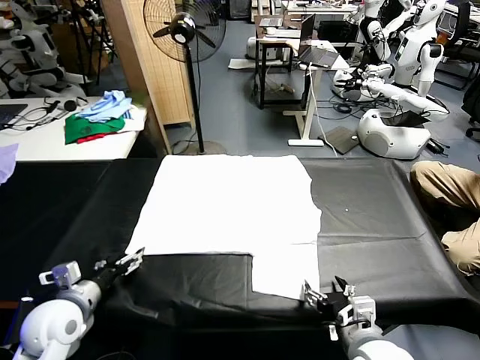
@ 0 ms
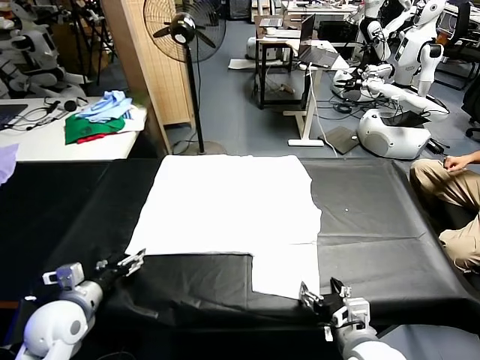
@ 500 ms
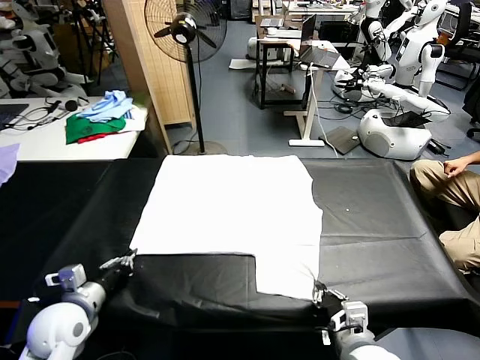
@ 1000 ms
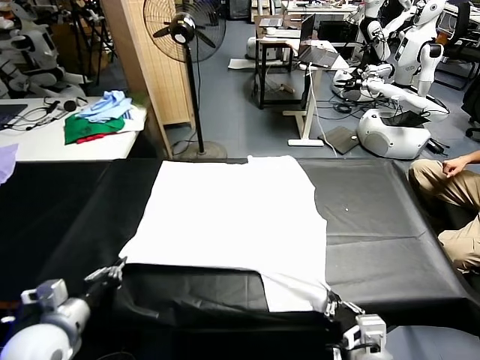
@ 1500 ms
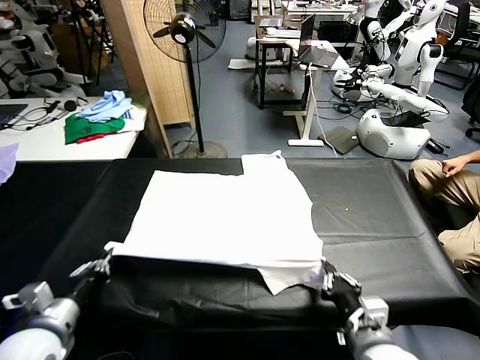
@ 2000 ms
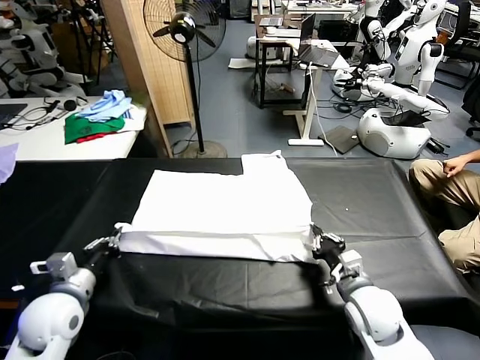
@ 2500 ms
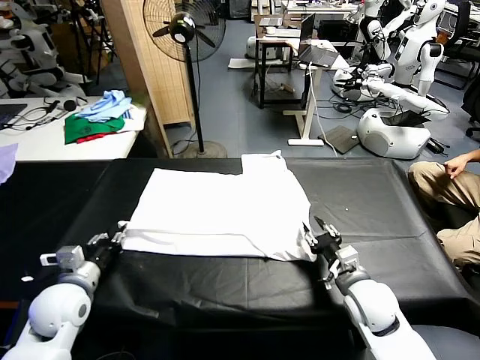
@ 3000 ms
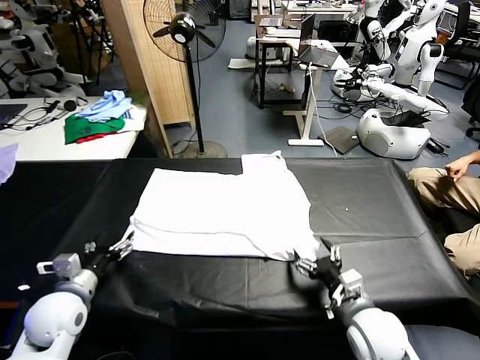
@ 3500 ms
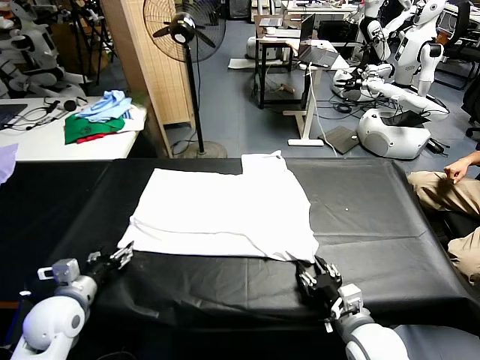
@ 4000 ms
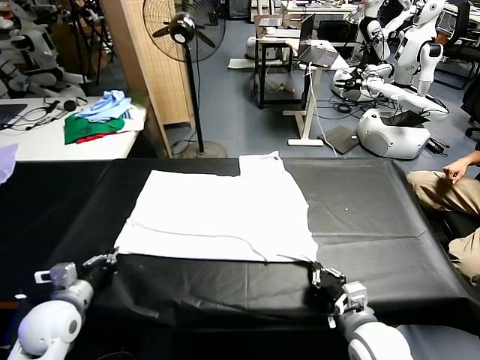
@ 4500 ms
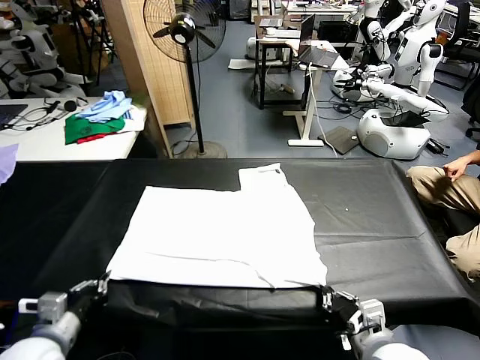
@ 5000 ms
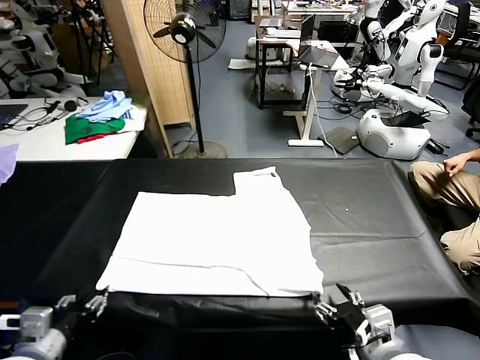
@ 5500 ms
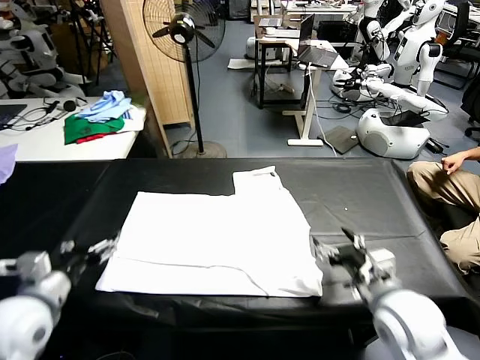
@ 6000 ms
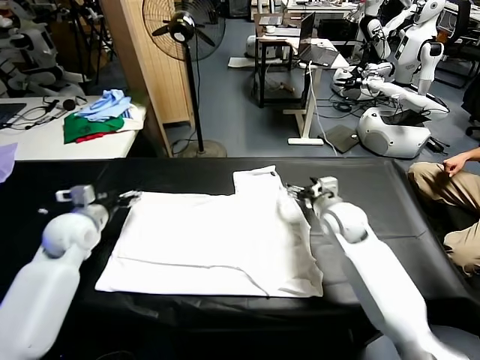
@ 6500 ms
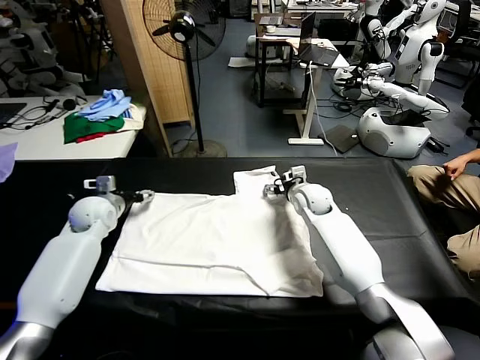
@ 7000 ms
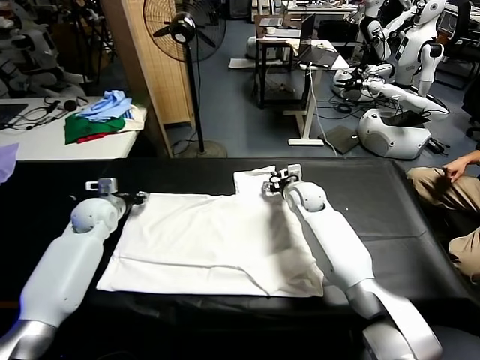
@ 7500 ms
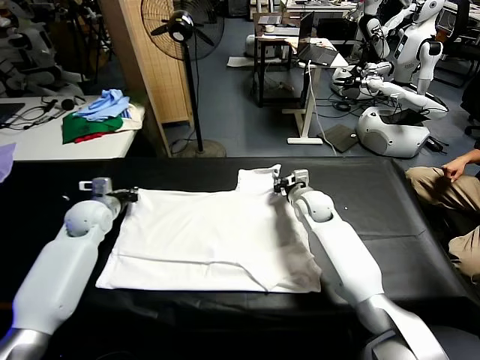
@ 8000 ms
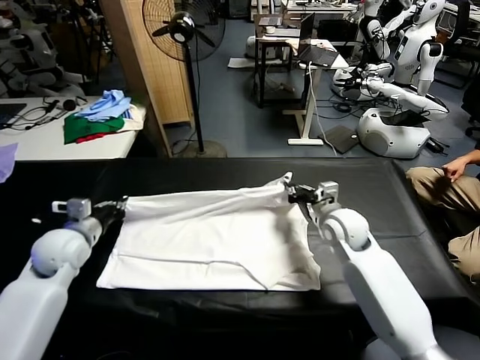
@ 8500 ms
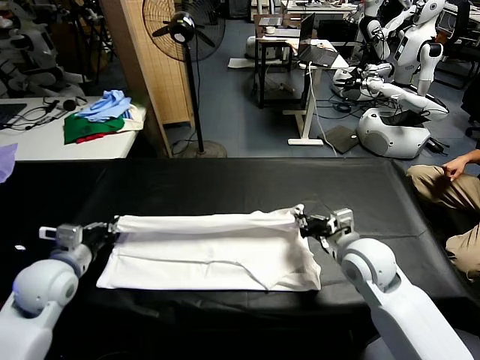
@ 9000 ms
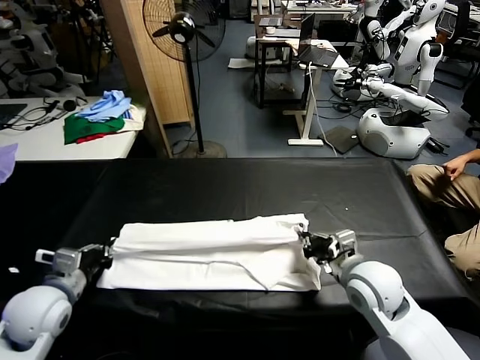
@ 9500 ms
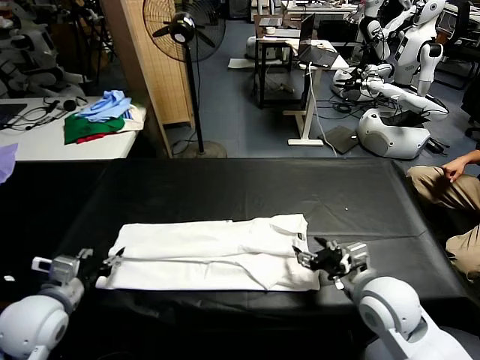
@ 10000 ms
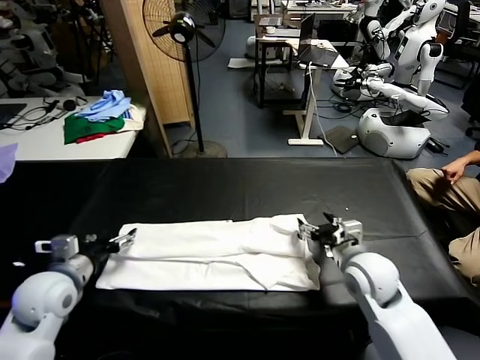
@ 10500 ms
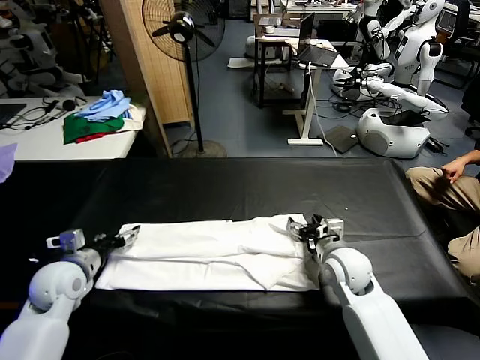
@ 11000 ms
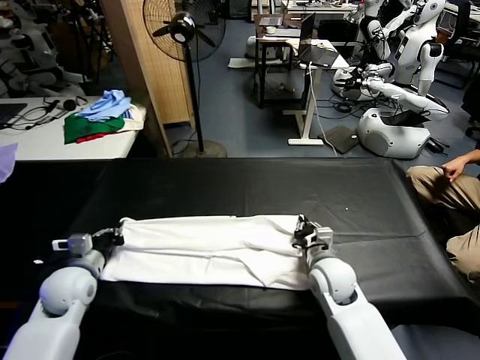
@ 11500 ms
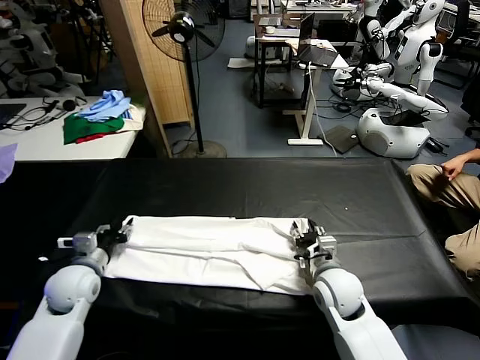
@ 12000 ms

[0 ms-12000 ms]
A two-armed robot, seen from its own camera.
Task of the whole recording: fold and organize the clothes.
Step, 0 ms to 1000 ms: use both grippers simultaneously to clamp the lower edge of the clothing fabric.
Step, 1500 ms to 3000 ms: use both grippers to drag the lower edge of the fabric forward and fold it over the upper edge.
Step, 3500 ms to 5500 ms: Drag the clothes downward with both gripper.
Step, 6000 ms to 7500 ms: use both grippers simultaneously to clamp the upper edge of the clothing fabric.
Step, 8000 ms to 10000 ms: use both grippers to drag the upper edge of the fabric backward and fold it over the lower edge.
2000 ms to 4000 ms: The left gripper shifts some 10 cm forward and downward, and opens up. The right gripper moves about 5 cm forward and comes back, and opens.
4000 ms to 6000 ms: The left gripper moves upward, approximately 10 cm, goes backward and returns, approximately 10 cm each way, and closes, then opens again, while the right gripper heads forward and upward, covering about 15 cm, and opens up.
6000 ms to 8000 ms: The two grippers go some 20 cm forward. The left gripper closes up. Meanwhile the right gripper closes its fingers.
8000 ms to 10000 ms: The two grippers go about 25 cm backward. The right gripper opens its fingers. Meanwhile the left gripper opens up.
10000 ms to 12000 ms: The left gripper goes some 10 cm forward and downward, and closes, then reopens. The right gripper goes approximately 10 cm downward and to the left, and closes, then reopens.

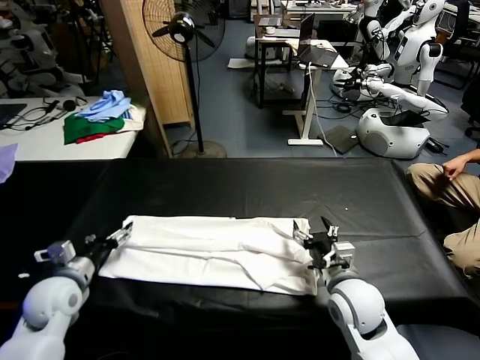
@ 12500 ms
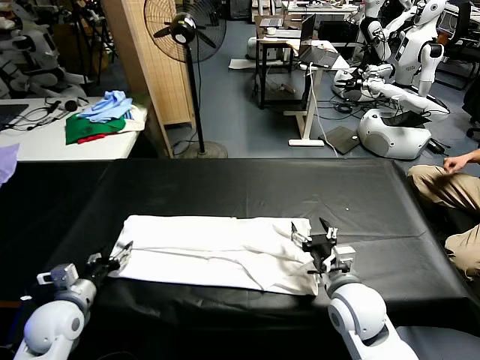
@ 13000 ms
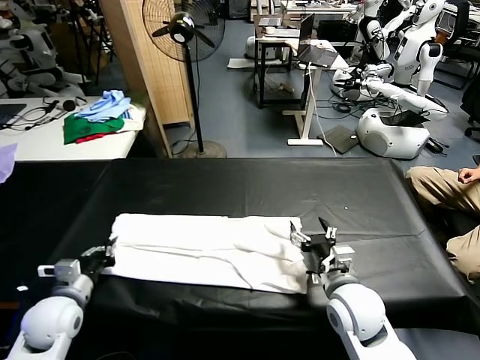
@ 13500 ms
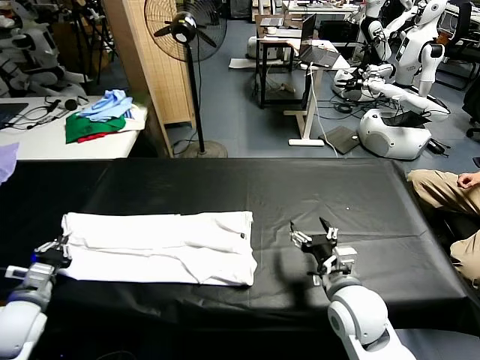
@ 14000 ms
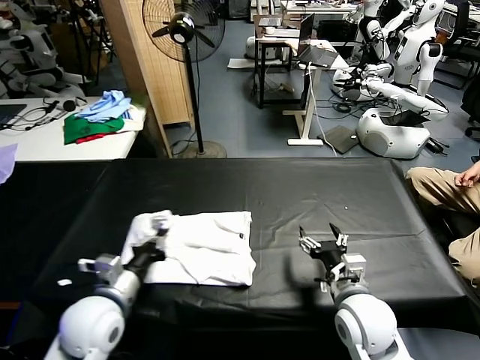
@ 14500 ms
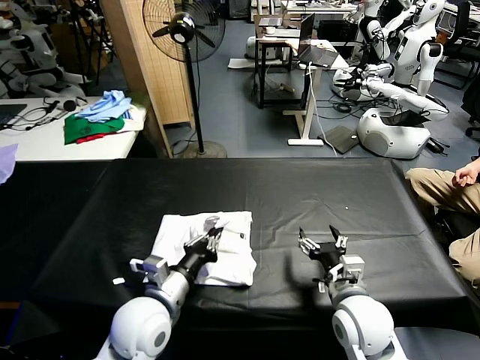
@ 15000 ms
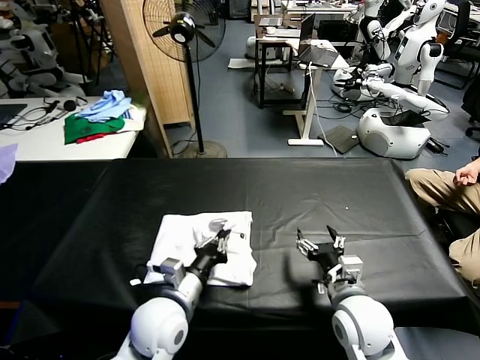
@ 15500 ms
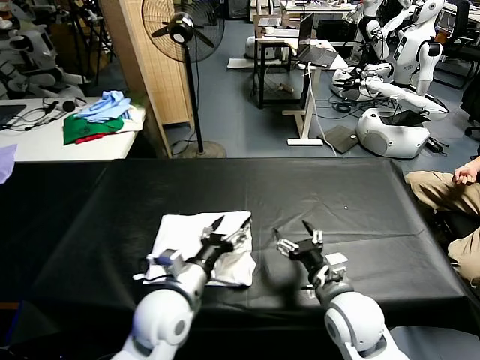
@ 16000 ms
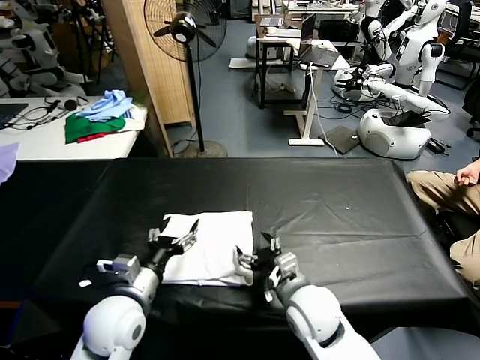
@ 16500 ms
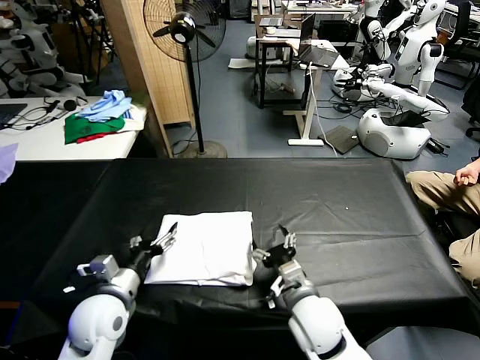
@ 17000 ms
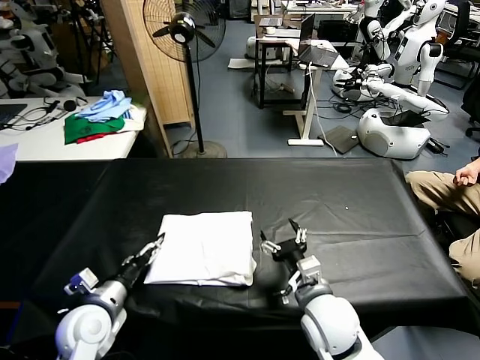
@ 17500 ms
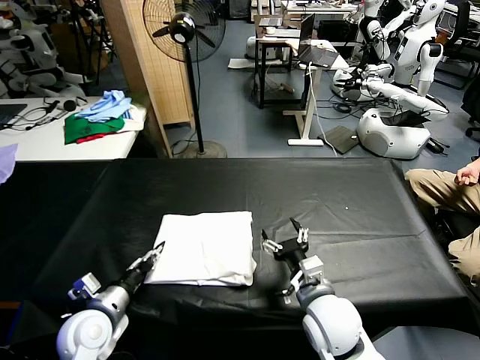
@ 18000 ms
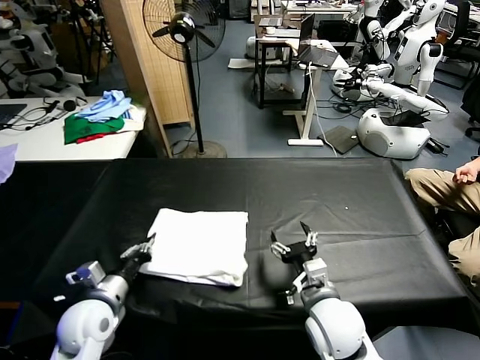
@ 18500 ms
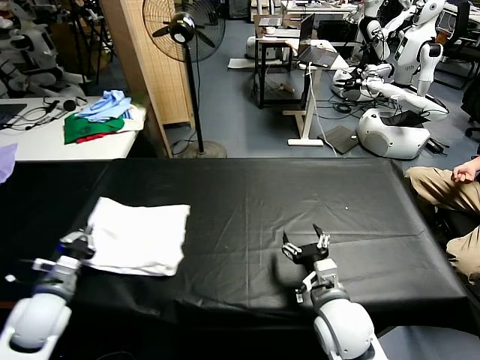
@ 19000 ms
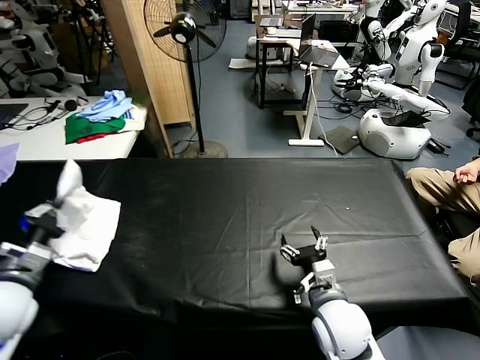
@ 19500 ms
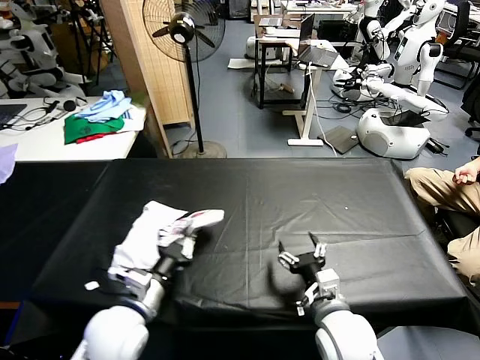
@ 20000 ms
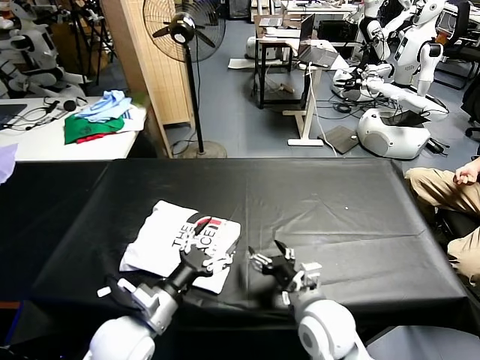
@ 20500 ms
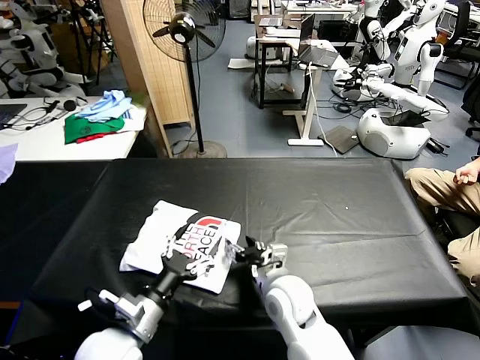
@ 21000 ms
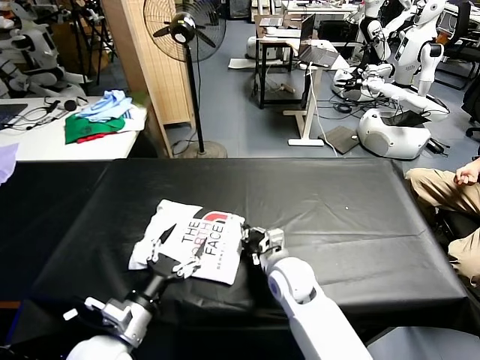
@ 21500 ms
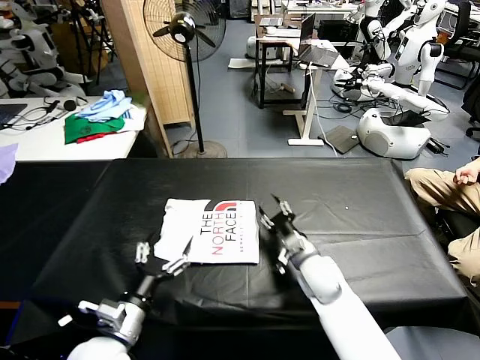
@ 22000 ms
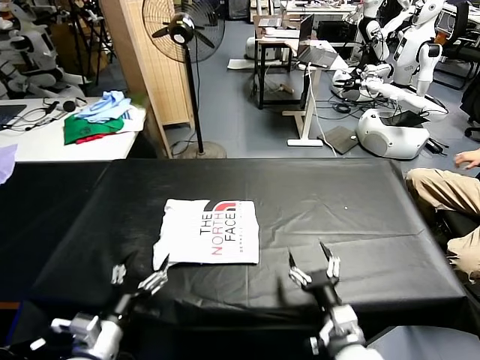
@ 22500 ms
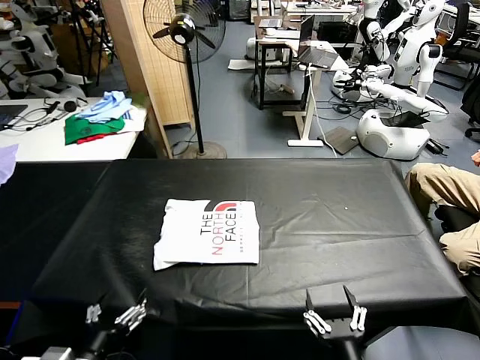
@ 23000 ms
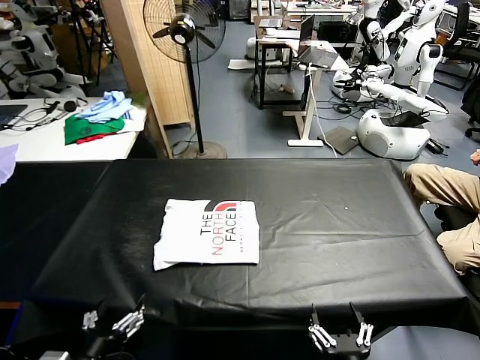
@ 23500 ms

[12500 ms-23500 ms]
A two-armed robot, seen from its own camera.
Task of the whole recording: fold and organize the clothes.
Step, 14000 ms to 16000 ms: use the left gripper to drag the left edge of the fabric to the left and folds it over the right edge.
Step, 16500 ms to 20000 ms: Flip the folded clothes over with left gripper.
Step, 20500 ms to 22000 ms: Drag the clothes to the center of the table.
12500 ms to 14500 ms: The left gripper travels to the right by roughly 10 cm, and closes up.
14500 ms to 16000 ms: The left gripper travels to the right by approximately 10 cm, and opens up.
16000 ms to 18000 ms: The left gripper shifts approximately 15 cm to the left, and closes up.
18000 ms to 20000 ms: The left gripper goes approximately 10 cm to the right and upward, and closes.
20000 ms to 21500 ms: The right gripper travels forward and to the left by approximately 15 cm, and closes, while the left gripper opens its fingers.
21500 ms to 23500 ms: The right gripper is displaced backward by about 30 cm, and opens up; the left gripper heads backward, covering approximately 10 cm.

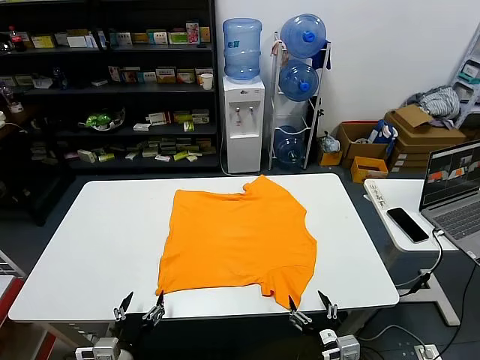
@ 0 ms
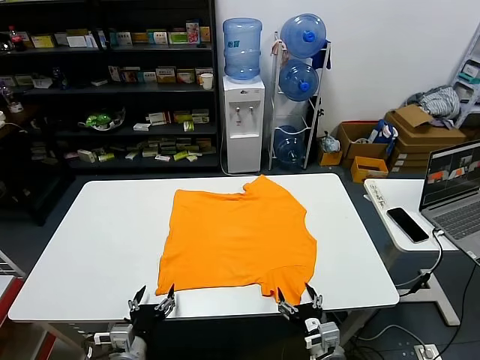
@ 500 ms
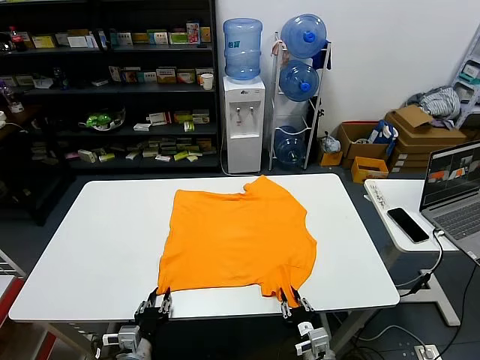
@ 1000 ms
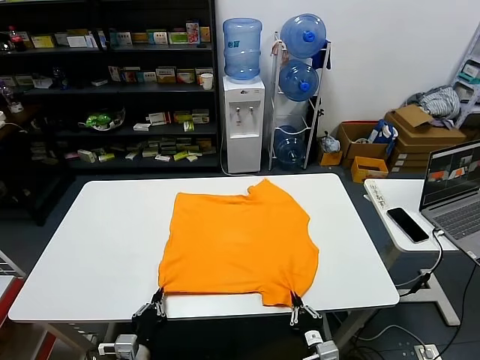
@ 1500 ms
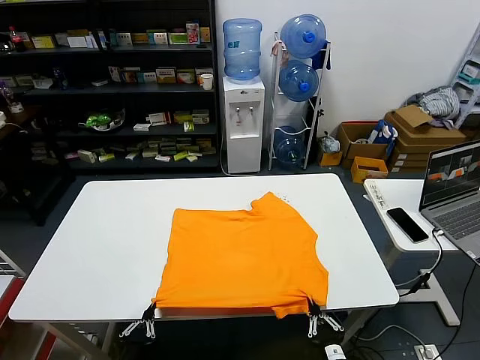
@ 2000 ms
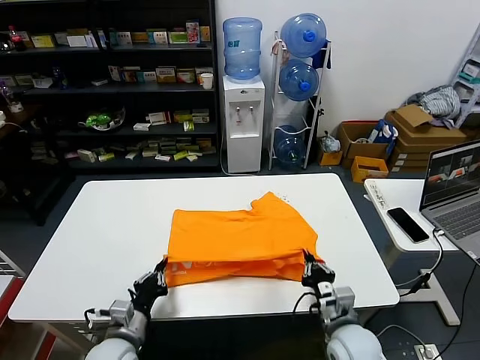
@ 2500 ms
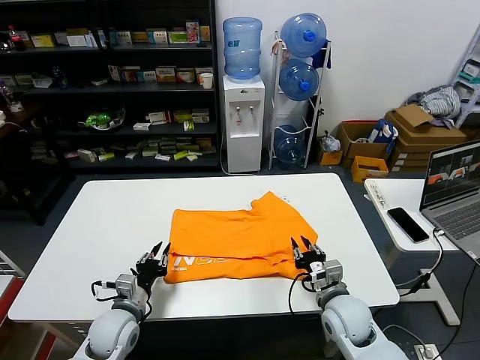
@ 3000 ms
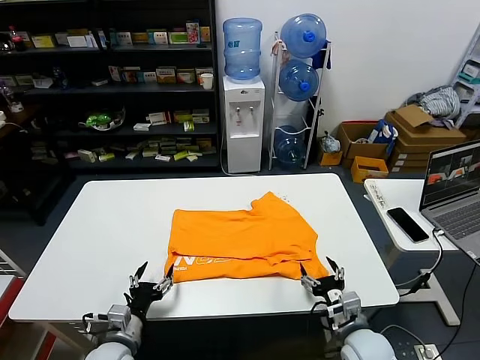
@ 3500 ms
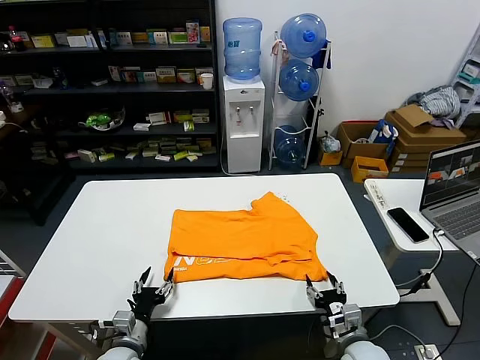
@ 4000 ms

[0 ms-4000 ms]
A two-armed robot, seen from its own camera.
Task of the whole recording: fold and organize the clothes.
Step, 0 ms to 1000 ms: use both grippers simultaneously to clamp the lower edge of the clothing fabric.
Step, 1500 ms to 2500 ms: use both grippers to drag the lower edge of the fabric forward and fold it over the upper edge.
2000 ms to 4000 ms: The right gripper travels forward by roughly 10 cm, and opens its fingers. Meanwhile the left gripper travels forward and downward by approximately 15 cm, and opens its fingers.
